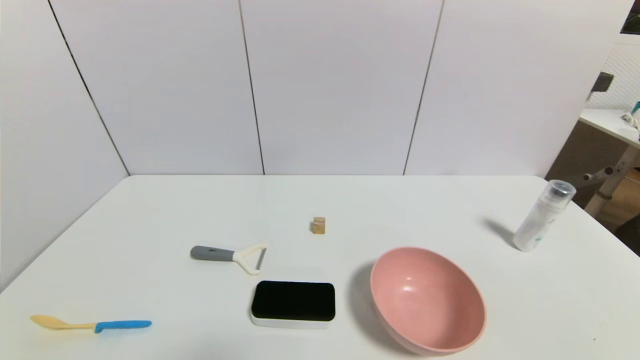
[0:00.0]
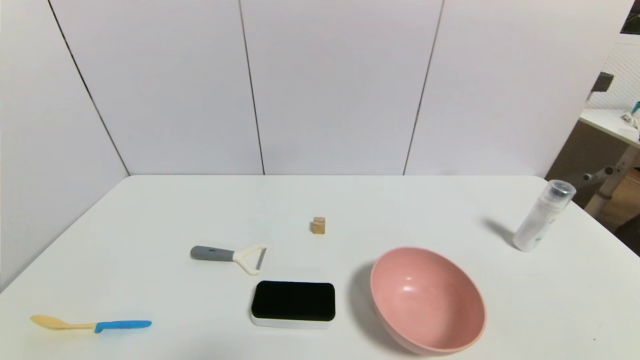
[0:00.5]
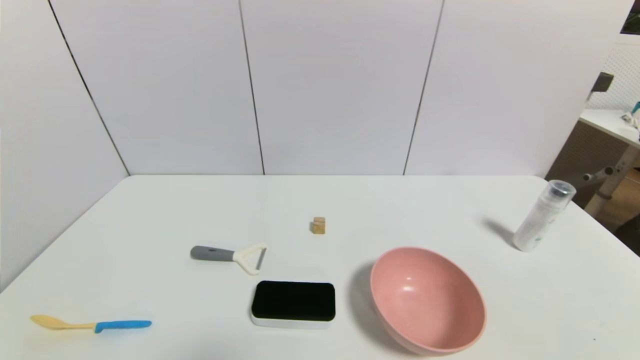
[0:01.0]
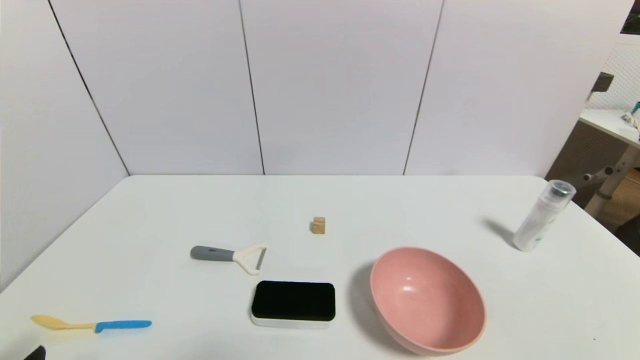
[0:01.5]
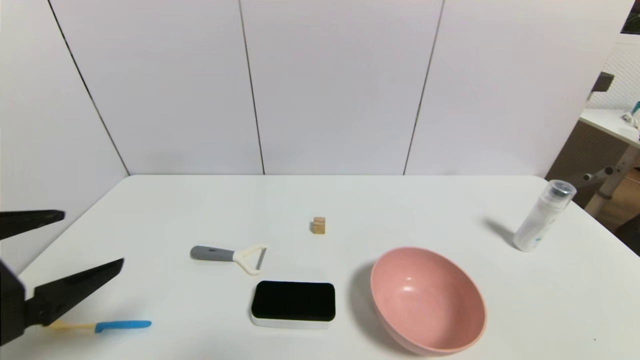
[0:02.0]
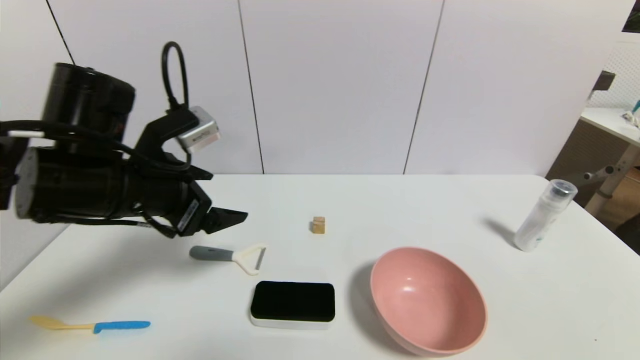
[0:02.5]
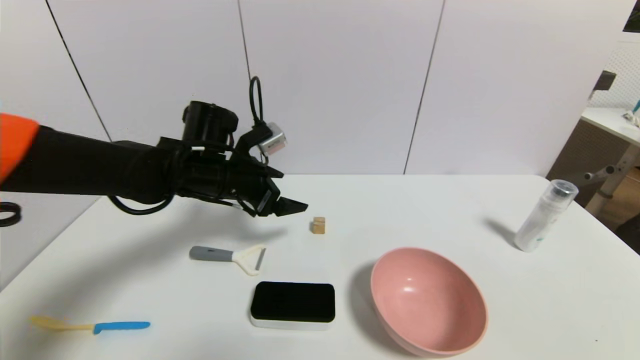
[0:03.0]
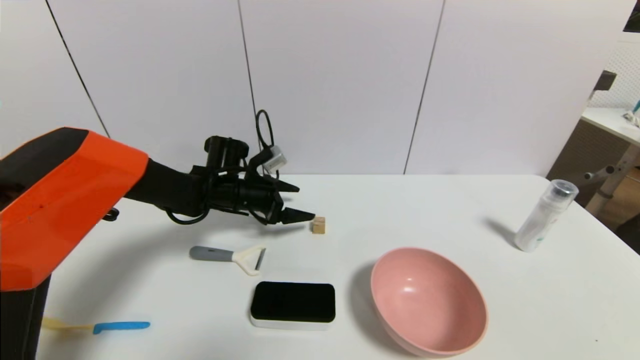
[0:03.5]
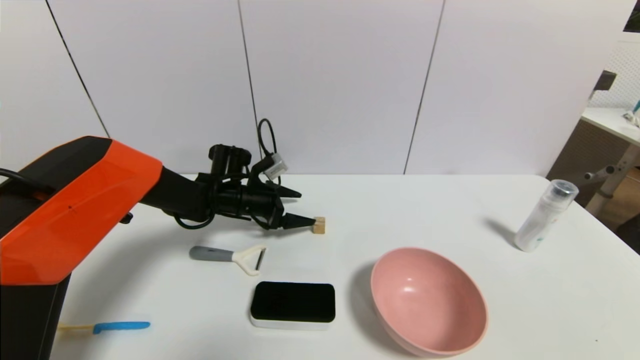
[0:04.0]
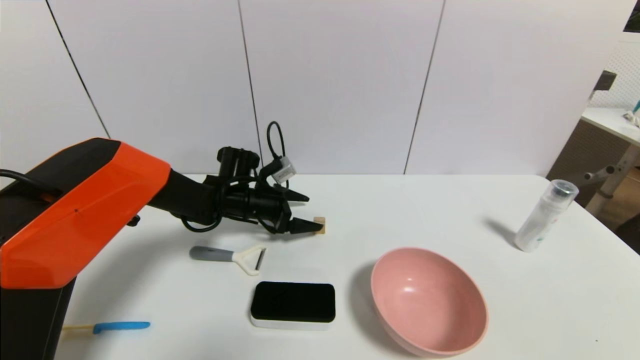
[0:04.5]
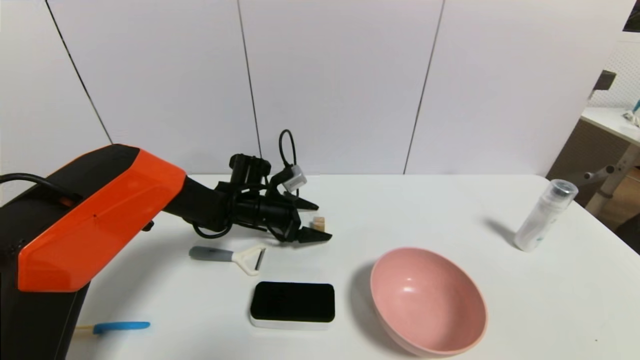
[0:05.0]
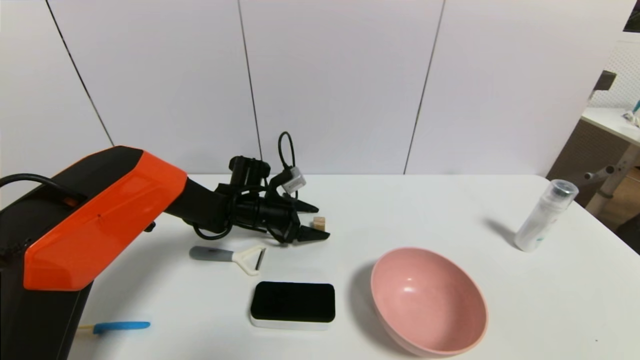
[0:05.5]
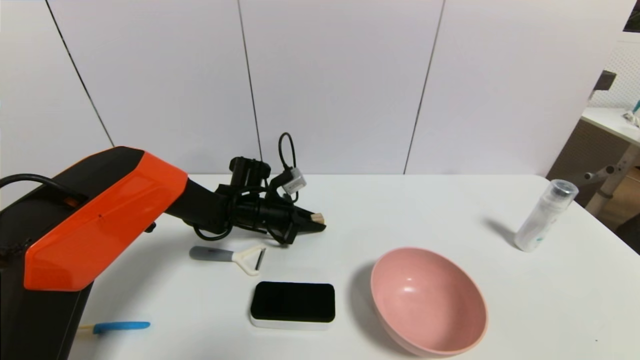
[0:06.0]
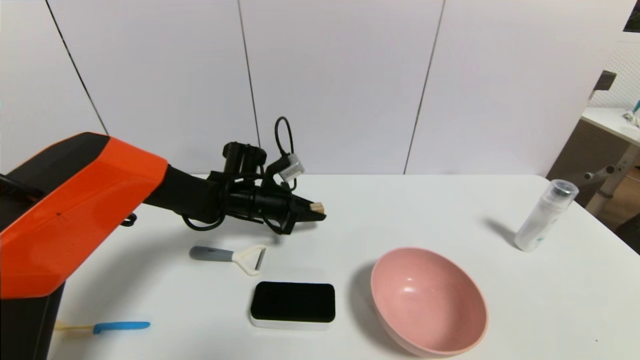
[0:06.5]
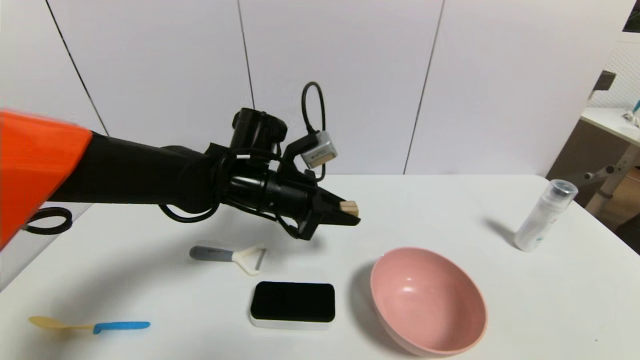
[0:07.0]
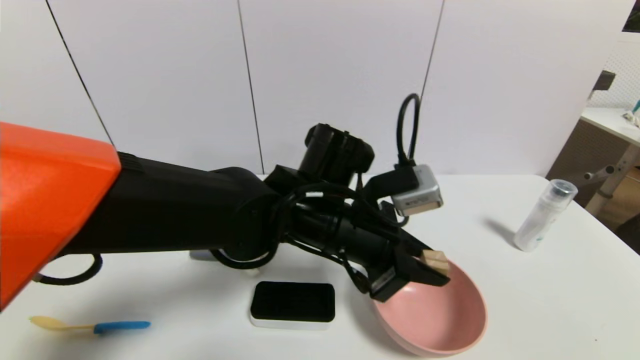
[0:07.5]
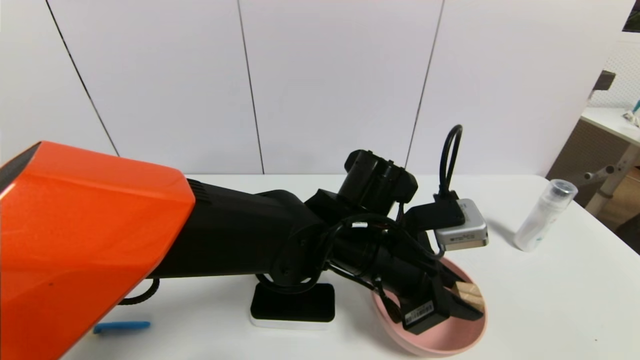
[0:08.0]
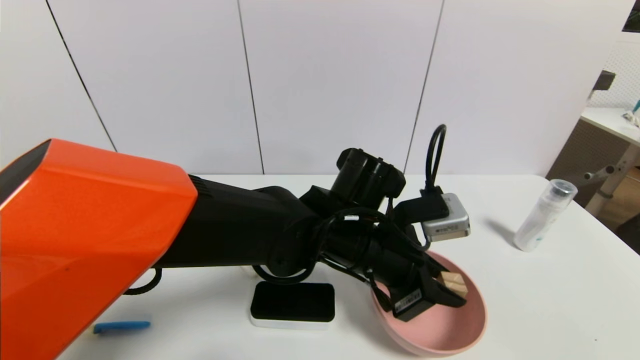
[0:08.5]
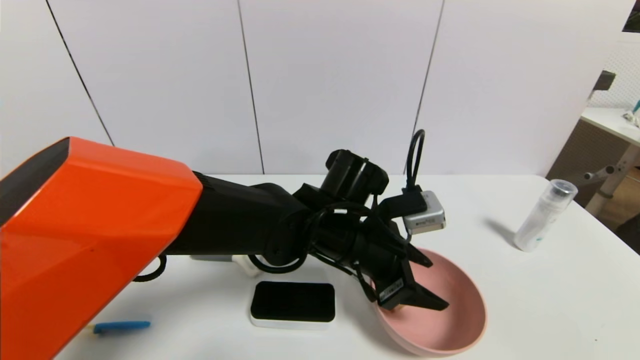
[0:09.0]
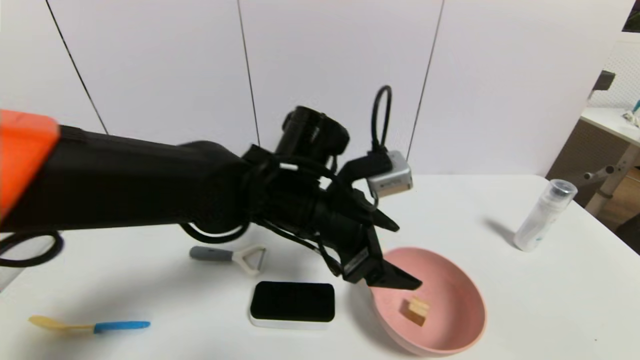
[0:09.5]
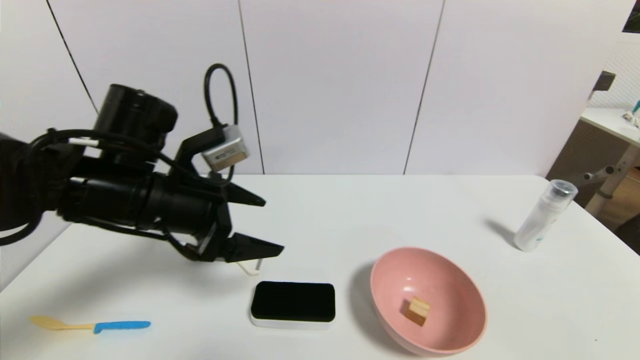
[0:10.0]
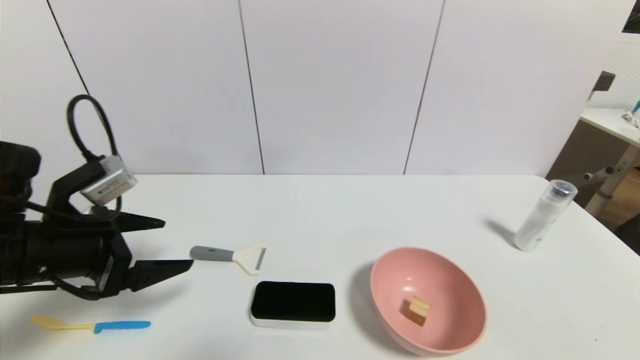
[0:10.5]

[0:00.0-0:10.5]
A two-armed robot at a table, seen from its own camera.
Task of the whole recording: use a gripper to pick the target object and place on the pink bowl.
Step, 0:00.0 to 0:06.0: Grasp the square wooden block with the left gripper.
Step, 0:06.5 to 0:09.0: Place the square wooden block on the pink bowl with the left gripper.
0:00.0 to 0:02.0: The left gripper heads upward and forward, covering some 20 cm.
0:02.0 to 0:04.0: The left gripper heads forward and downward, covering about 35 cm.
0:04.0 to 0:06.5: The left gripper closes.
0:06.5 to 0:08.5: The left gripper shifts approximately 20 cm to the right and backward.
0:08.5 to 0:10.5: The left gripper moves to the left, approximately 35 cm, and opens up.

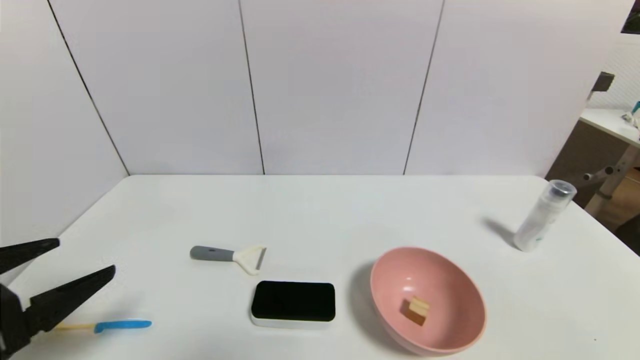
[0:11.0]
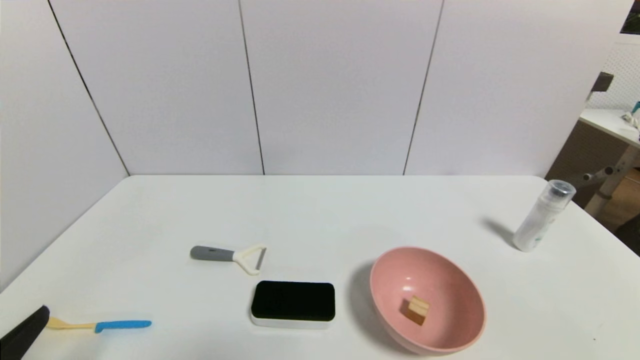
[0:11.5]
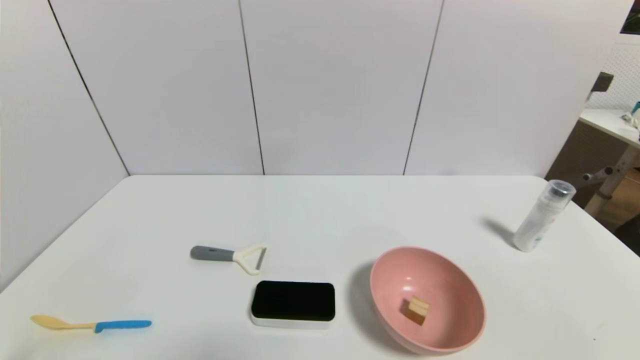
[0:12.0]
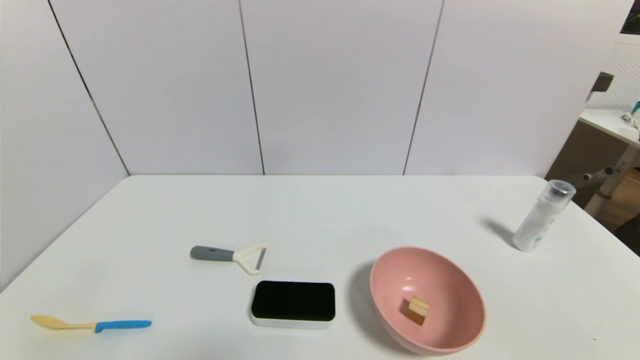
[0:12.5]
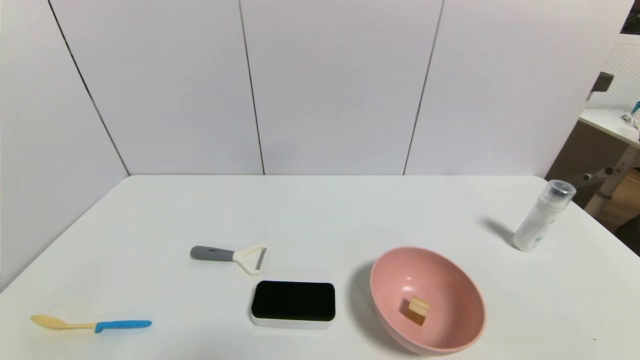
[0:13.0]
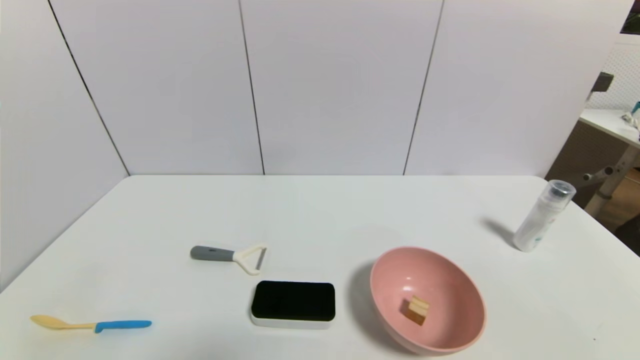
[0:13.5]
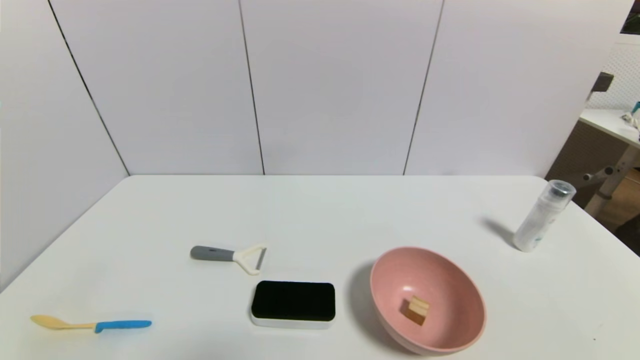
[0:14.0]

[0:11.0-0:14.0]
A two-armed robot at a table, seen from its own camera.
Task of the whole recording: use a gripper to pick the target object and place on the pink bowl.
0:11.0 to 0:12.5: The left gripper travels downward and backward by approximately 15 cm.
0:12.5 to 0:14.0: Both grippers stay about where they are.

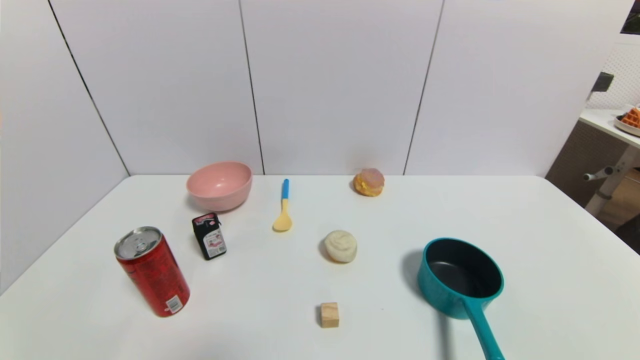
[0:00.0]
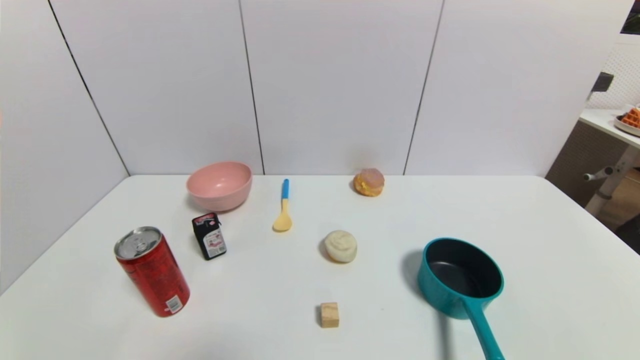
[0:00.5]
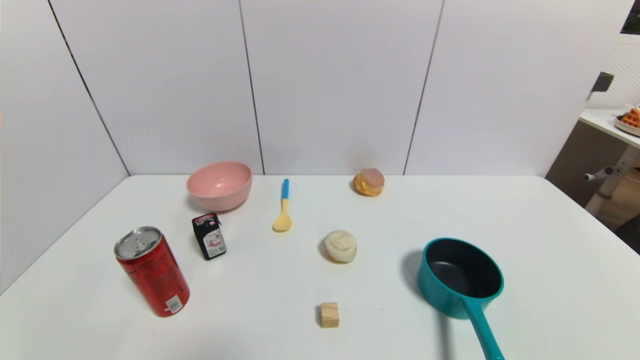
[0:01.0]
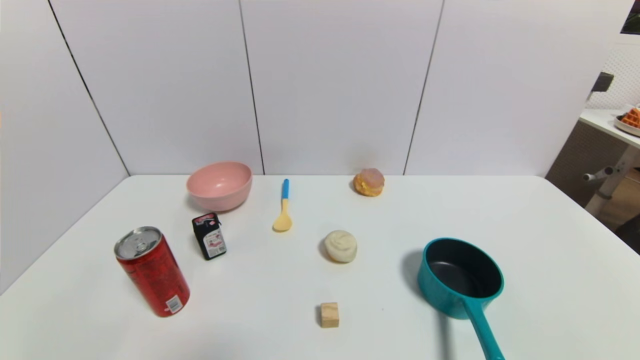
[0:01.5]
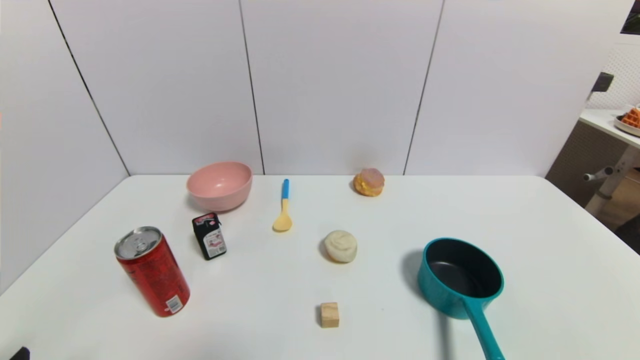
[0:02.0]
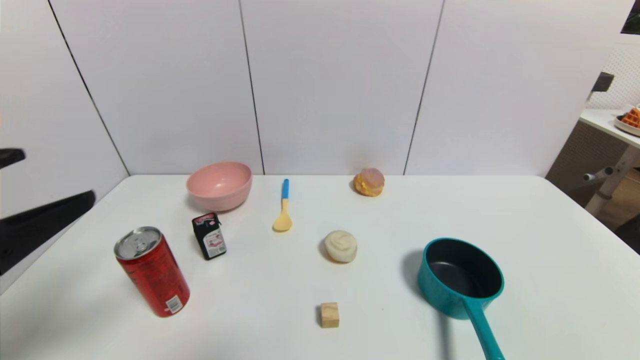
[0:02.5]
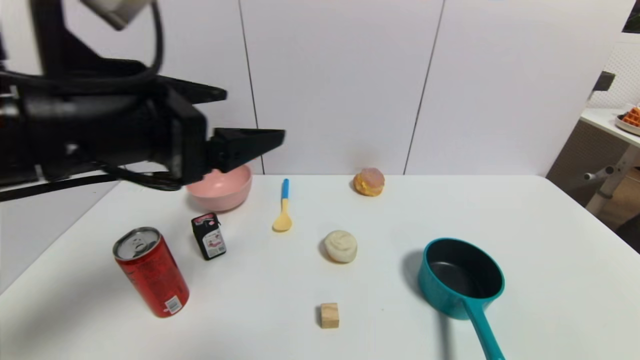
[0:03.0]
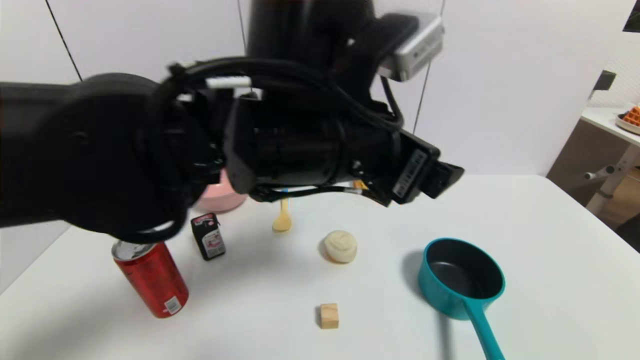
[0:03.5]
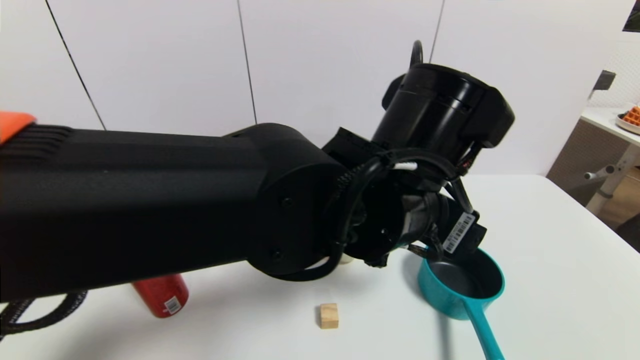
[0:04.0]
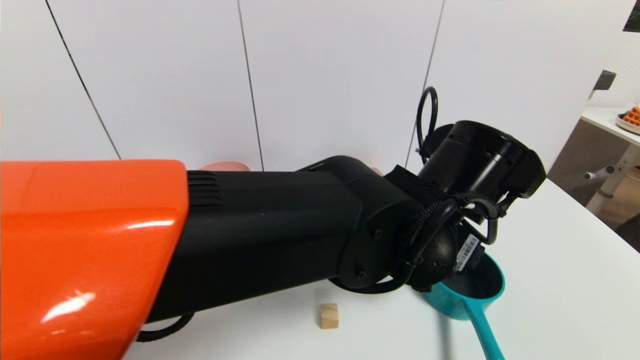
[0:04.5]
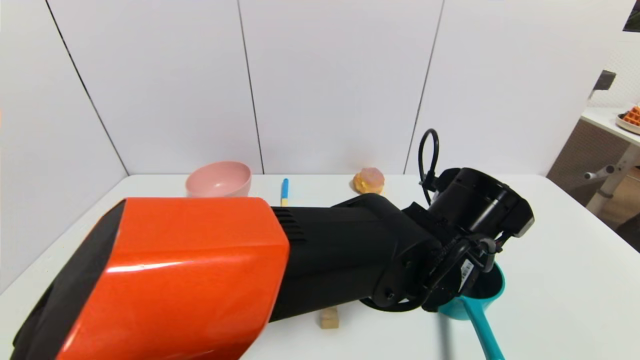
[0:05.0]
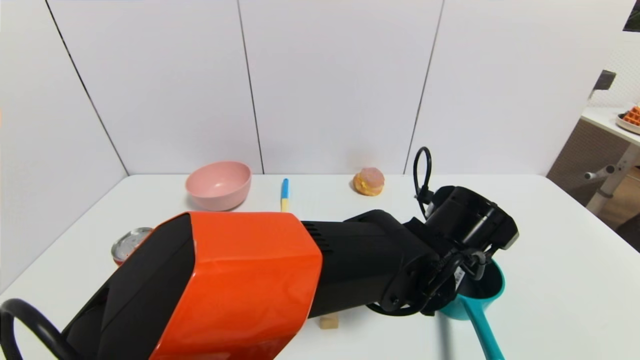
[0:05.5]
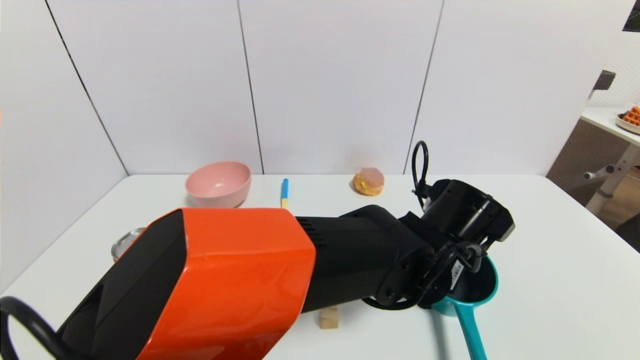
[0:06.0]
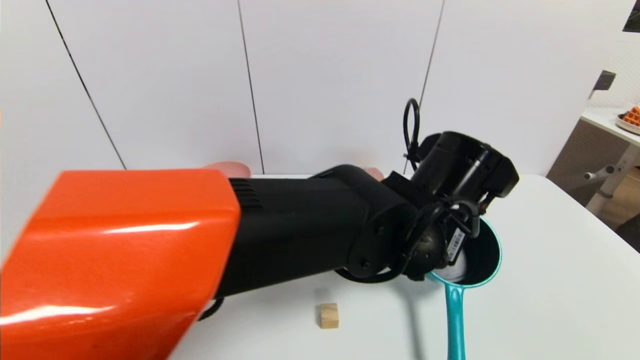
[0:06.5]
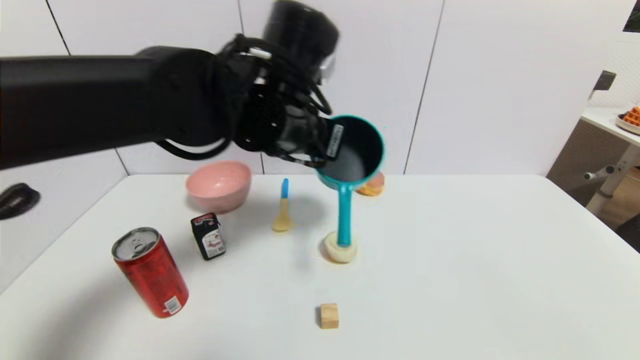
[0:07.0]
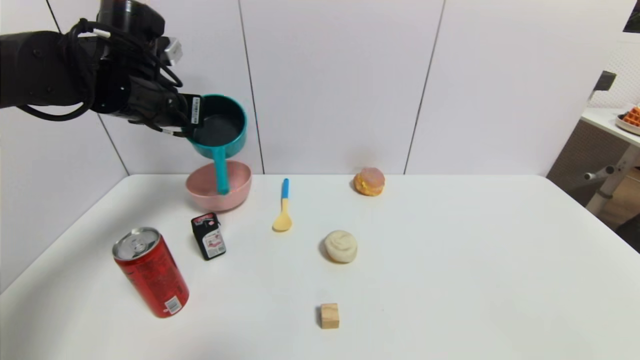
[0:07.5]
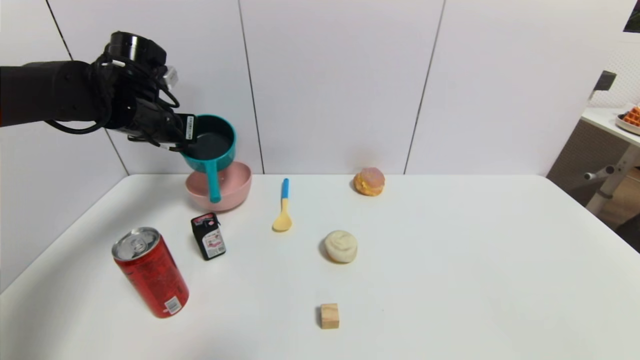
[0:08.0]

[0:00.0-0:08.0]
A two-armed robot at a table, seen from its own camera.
Task of the whole recording: use a gripper to pick the target object and place on the pink bowl.
Step, 0:00.0 to 0:06.0: Grasp the blue pot with the left gripper.
0:02.0 to 0:04.0: The left gripper travels to the right and forward by some 40 cm.
0:04.0 to 0:06.0: The left gripper shifts approximately 10 cm downward and to the right, and closes.
0:06.0 to 0:08.0: The left gripper moves to the left and forward, roughly 40 cm.
